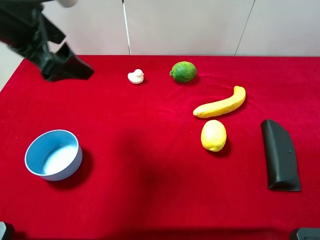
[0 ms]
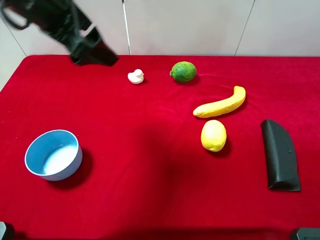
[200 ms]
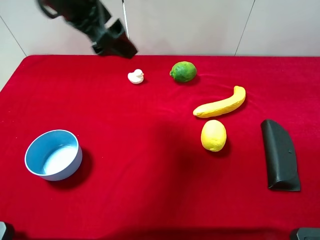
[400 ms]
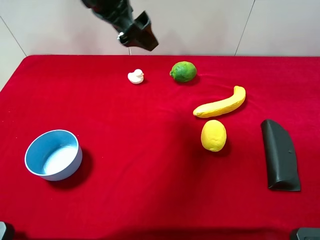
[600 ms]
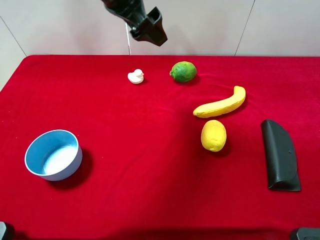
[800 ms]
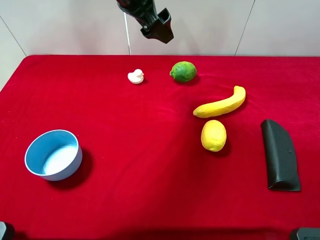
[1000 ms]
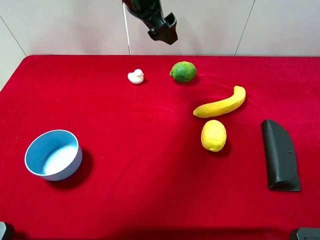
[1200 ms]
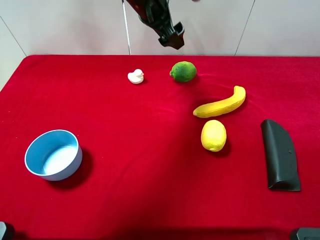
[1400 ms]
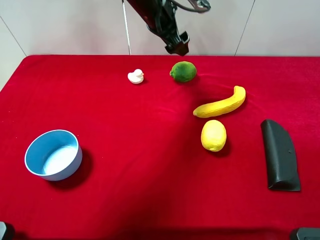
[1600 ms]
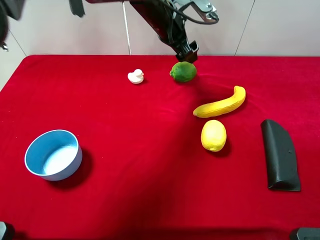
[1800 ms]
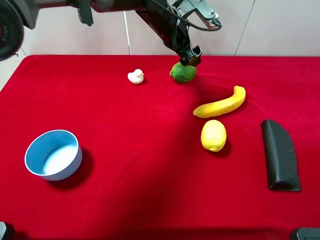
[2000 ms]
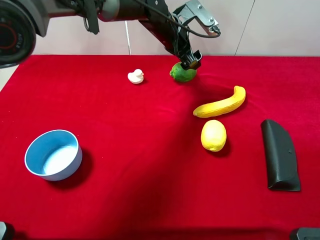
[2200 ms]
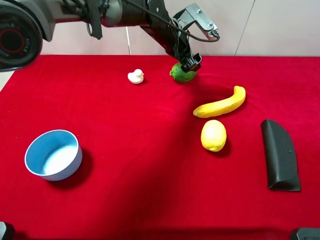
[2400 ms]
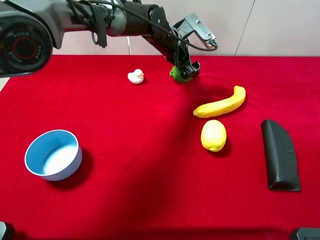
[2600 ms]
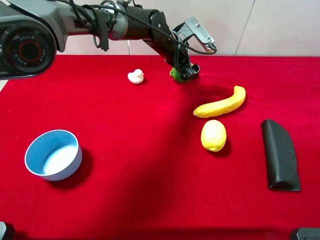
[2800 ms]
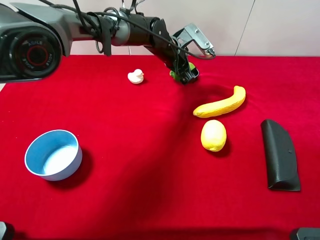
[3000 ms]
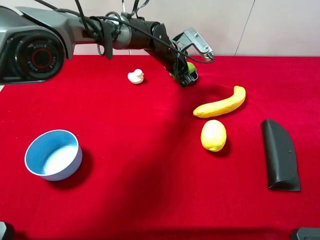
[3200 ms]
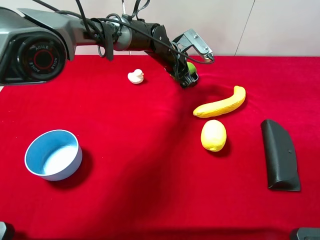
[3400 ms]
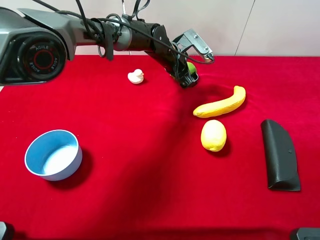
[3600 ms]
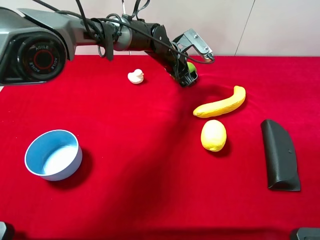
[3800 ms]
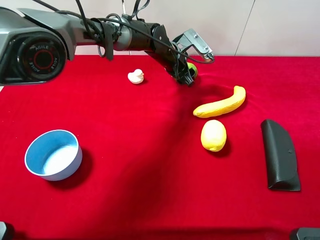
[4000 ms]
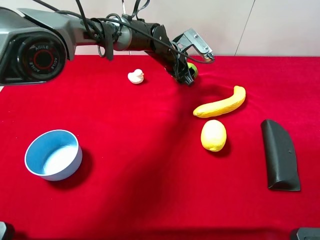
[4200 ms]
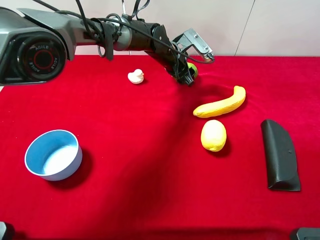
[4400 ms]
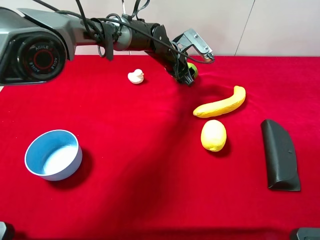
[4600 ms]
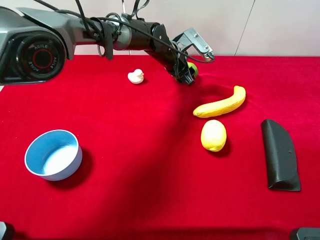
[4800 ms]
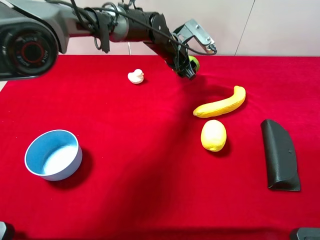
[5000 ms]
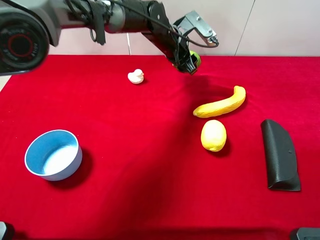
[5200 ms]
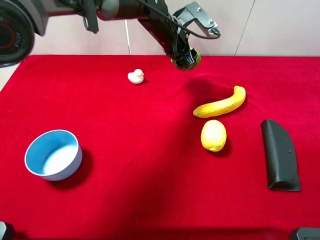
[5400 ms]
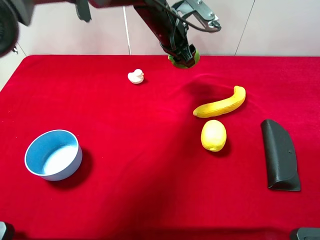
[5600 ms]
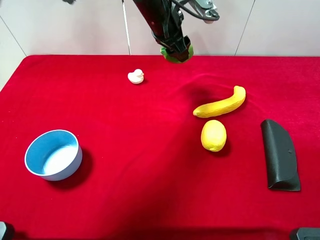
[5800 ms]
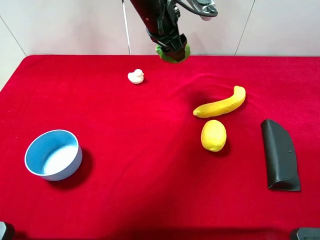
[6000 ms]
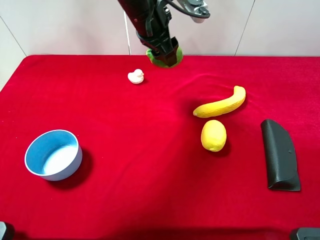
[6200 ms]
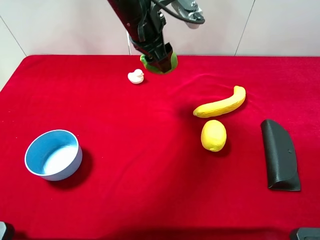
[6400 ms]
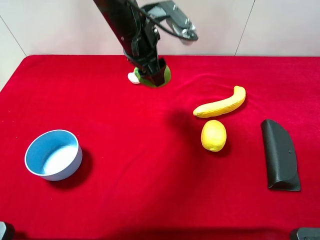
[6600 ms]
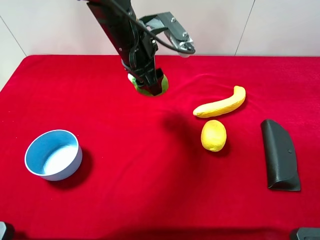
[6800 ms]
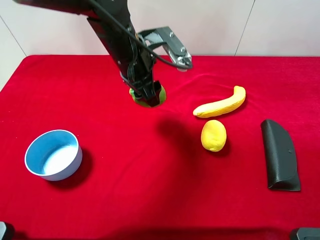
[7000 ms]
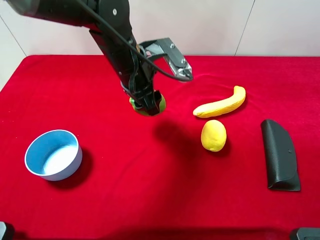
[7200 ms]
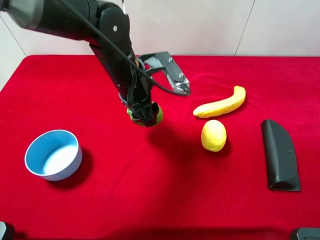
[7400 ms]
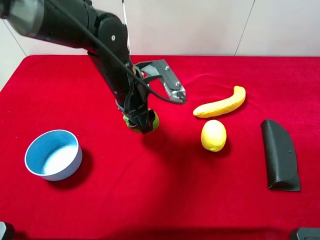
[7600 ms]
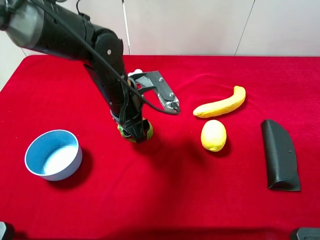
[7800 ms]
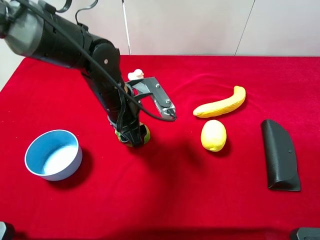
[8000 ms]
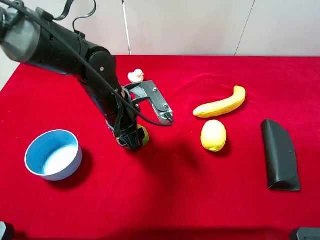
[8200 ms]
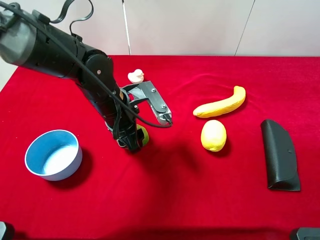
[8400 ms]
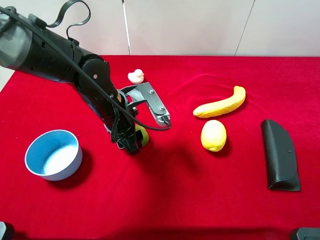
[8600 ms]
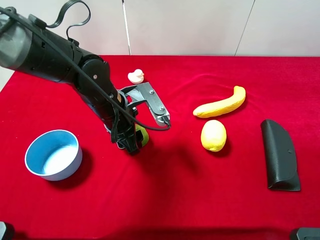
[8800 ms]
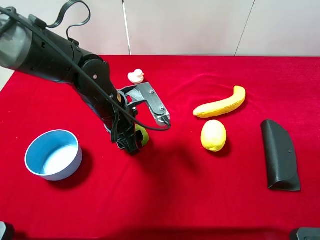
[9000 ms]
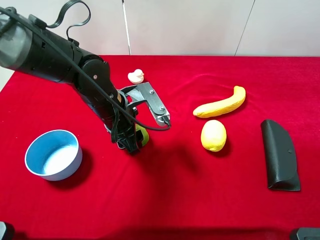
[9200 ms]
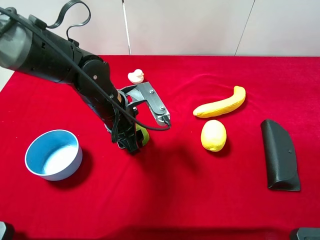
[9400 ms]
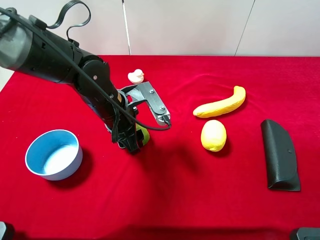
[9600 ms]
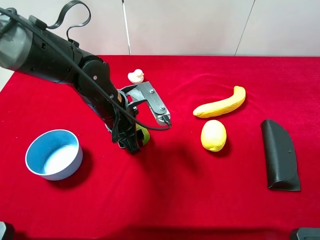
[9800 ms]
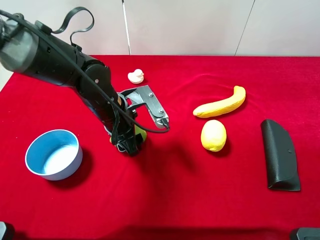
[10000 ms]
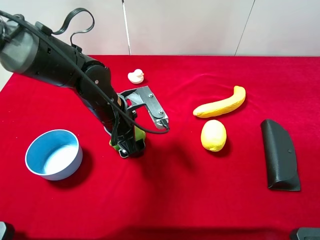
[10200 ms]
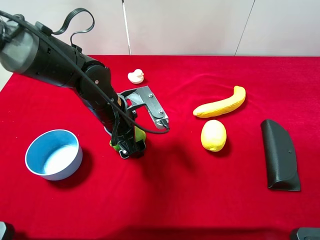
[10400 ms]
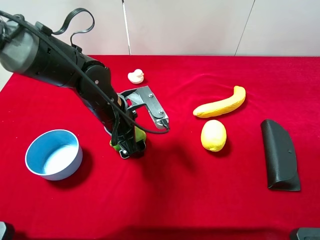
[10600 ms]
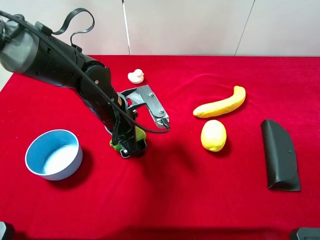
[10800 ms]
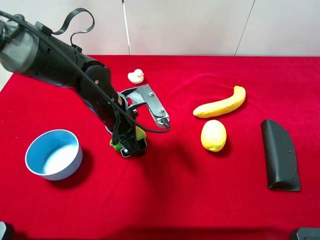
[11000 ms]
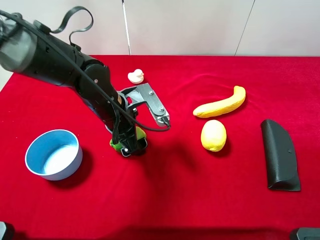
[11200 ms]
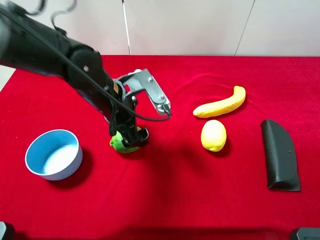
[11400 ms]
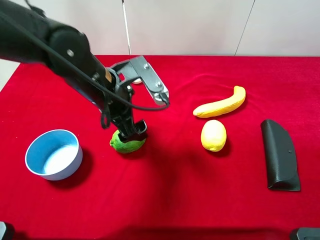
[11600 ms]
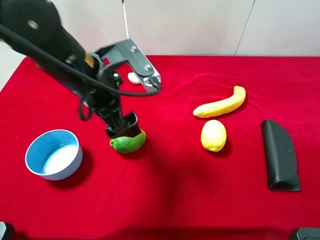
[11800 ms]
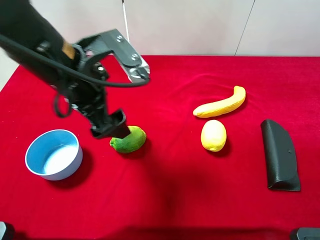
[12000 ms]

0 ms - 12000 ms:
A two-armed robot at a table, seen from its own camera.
Task of the whole recording: the gripper move the object.
Step, 0 ms - 4000 ms: Grasp the green lemon with the left gripper.
Step, 4200 ms - 12000 ms: Place the green lemon on the table with the left gripper.
0 ms - 1600 ms: The left gripper shifts some 25 cm forward and to the right.
1600 ms - 3000 ms: The left gripper shifts some 10 cm downward.
3000 ms - 4400 ms: The left gripper closes up.
4400 ms - 6000 ms: The left gripper is displaced upward and backward by about 15 cm.
6000 ms - 7600 ms: The left gripper goes some 15 cm backward and downward.
7600 ms - 9000 ms: The left gripper moves some 5 cm.
9000 ms - 10400 ms: The left gripper opens.
10400 ms - 12000 ms: The left gripper heads upward, covering some 15 cm.

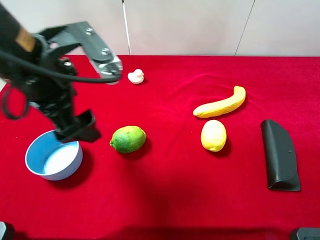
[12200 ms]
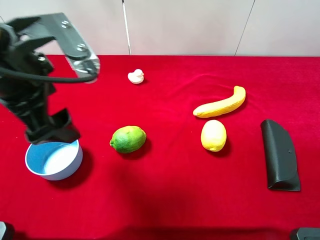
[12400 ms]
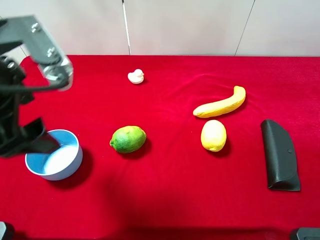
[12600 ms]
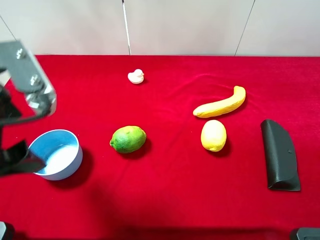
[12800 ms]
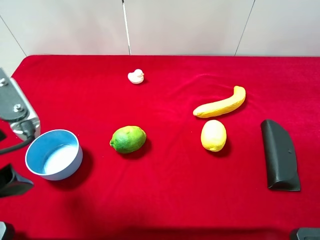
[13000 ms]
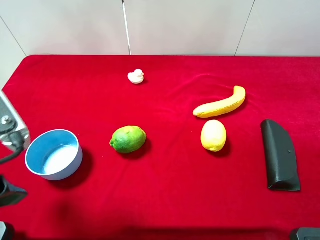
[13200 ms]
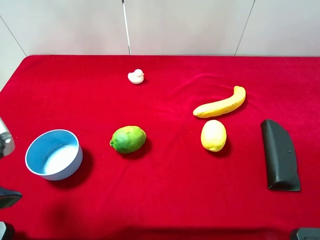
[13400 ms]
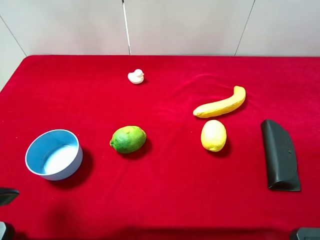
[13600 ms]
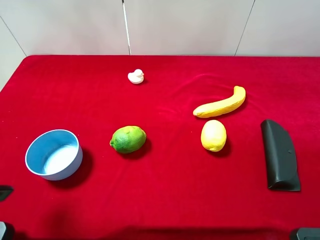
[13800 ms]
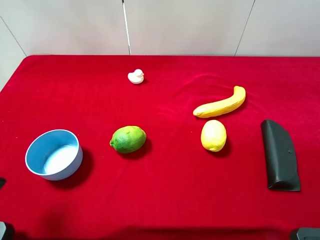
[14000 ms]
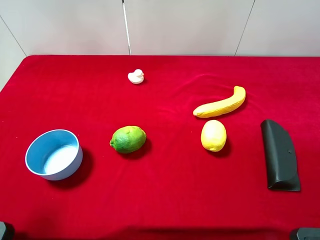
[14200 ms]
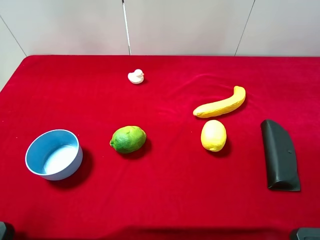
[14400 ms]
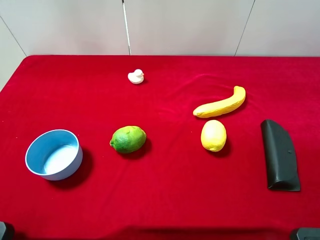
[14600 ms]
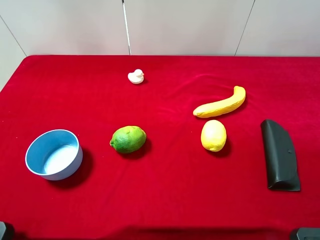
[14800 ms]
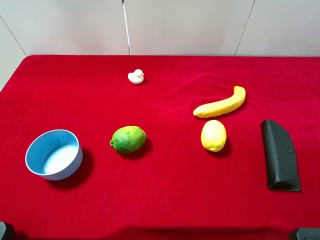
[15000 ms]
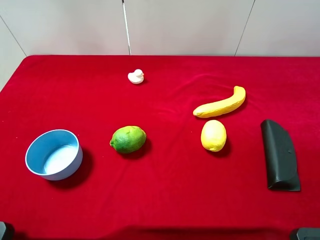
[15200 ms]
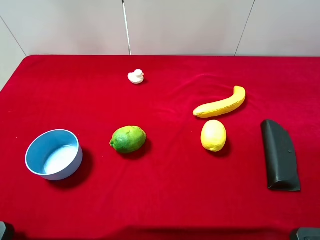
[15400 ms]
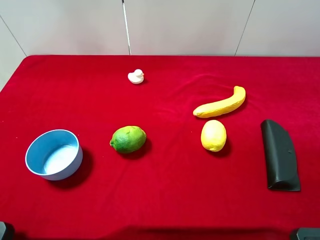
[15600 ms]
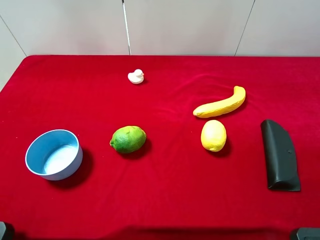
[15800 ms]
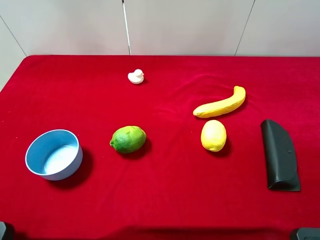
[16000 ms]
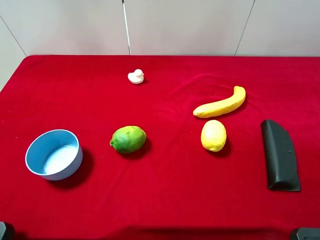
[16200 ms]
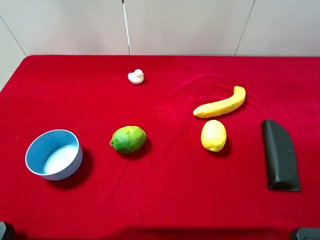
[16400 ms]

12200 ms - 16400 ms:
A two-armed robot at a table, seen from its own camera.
Task of the whole recording: the gripper move the object.
12200 ms - 13600 ms: The left gripper travels backward and to the left by approximately 15 cm.
15000 ms - 16400 ms: Both grippers stay about where they are.

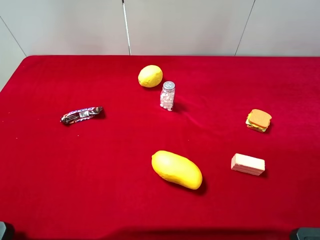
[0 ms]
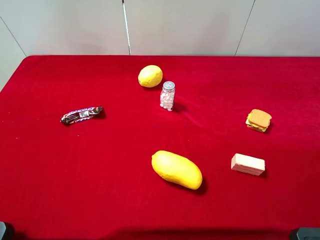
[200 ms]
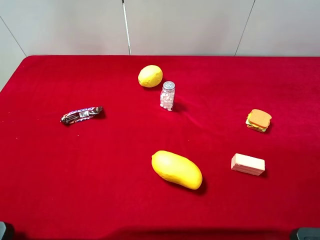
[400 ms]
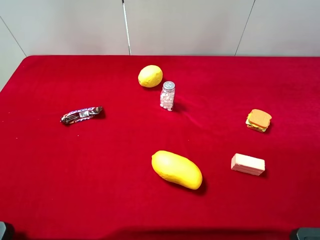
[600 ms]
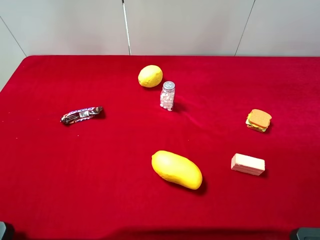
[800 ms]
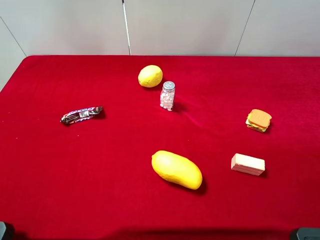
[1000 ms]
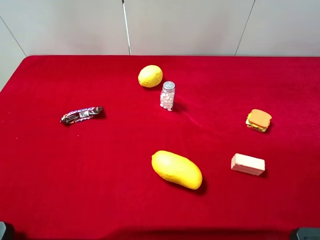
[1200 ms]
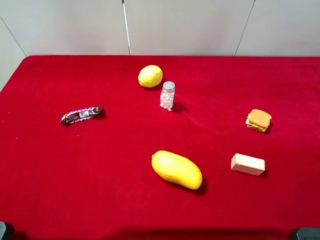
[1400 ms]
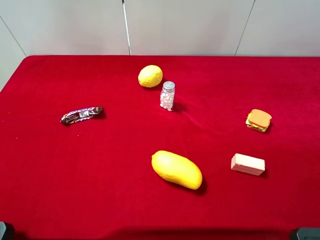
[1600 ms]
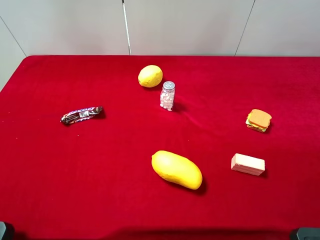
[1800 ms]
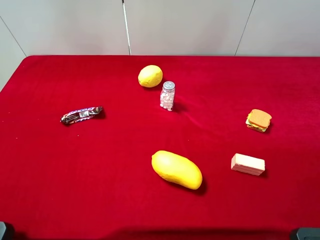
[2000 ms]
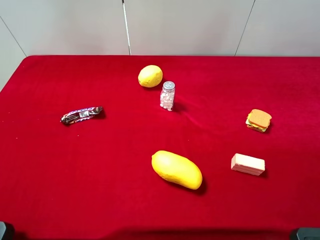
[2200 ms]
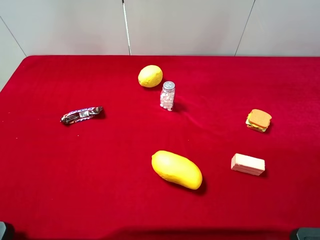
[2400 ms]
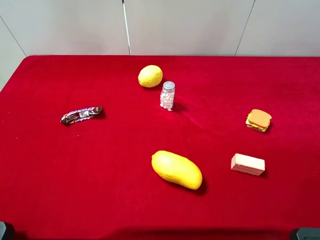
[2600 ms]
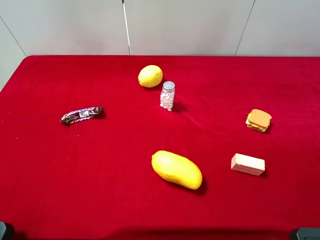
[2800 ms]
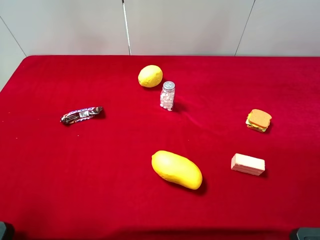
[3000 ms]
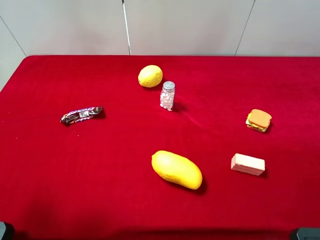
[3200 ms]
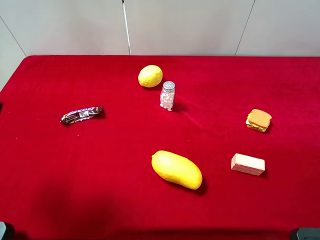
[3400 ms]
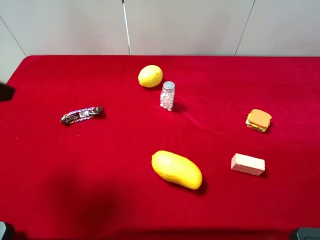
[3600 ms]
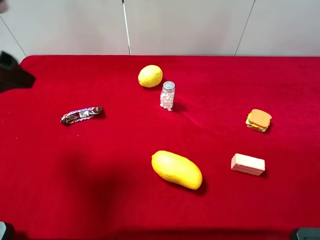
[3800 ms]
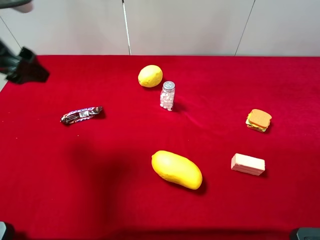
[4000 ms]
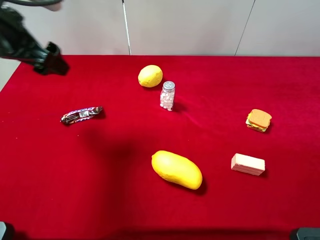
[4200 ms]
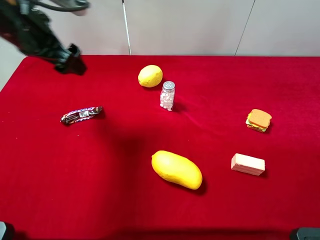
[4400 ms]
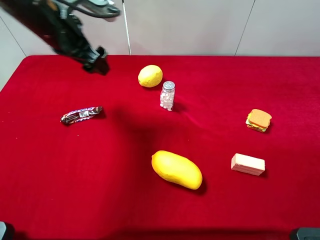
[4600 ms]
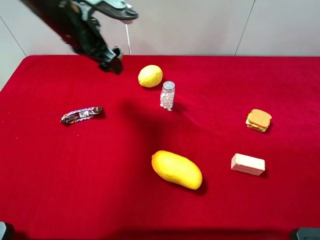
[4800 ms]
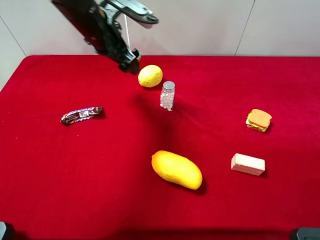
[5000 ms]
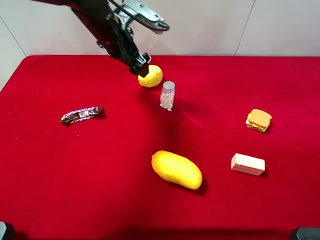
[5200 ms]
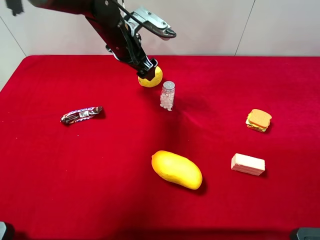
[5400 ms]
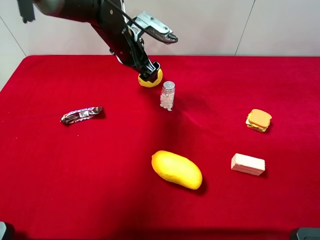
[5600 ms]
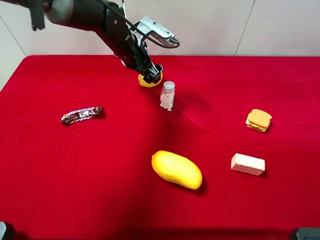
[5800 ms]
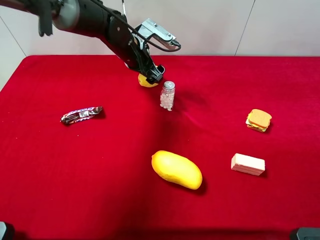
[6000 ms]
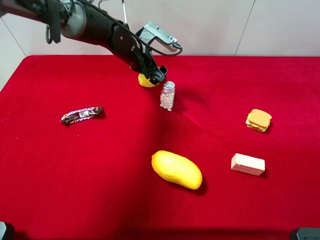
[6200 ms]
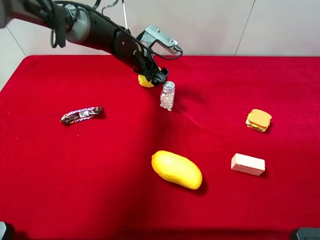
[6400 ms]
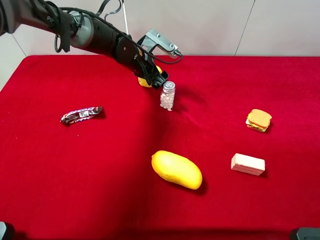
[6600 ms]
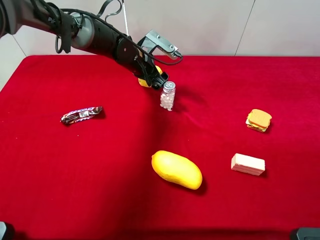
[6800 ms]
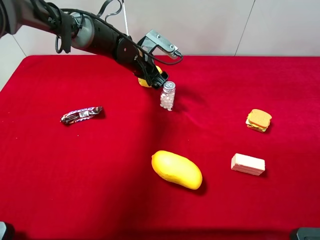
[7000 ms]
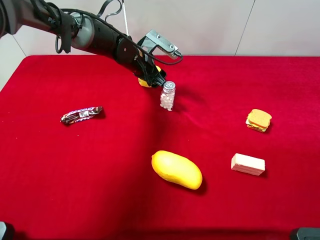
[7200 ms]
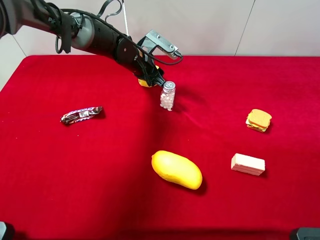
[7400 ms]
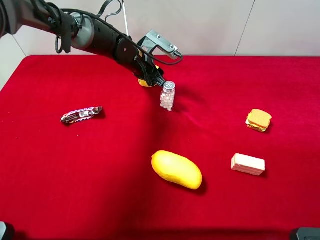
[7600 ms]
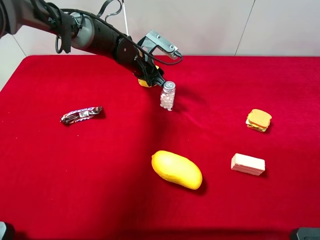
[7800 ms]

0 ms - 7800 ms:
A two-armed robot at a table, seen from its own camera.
Task of the whole recording: the gripper move the object.
Step, 0 ms - 7400 ms: Grasp the mango with the left gripper.
3200 ms - 4600 ms: The left gripper moves forward and to the right, some 25 cm.
4600 ms - 6200 ms: The left gripper heads downward, to the right and forward, covering roughly 20 cm.
6200 ms - 7800 ms: The left gripper closes up.
